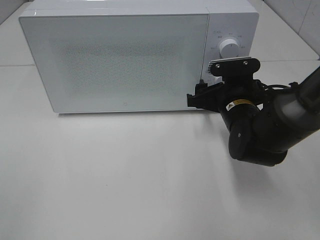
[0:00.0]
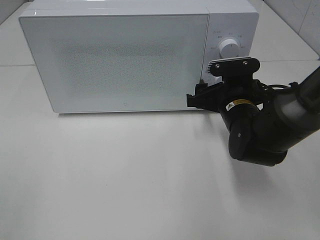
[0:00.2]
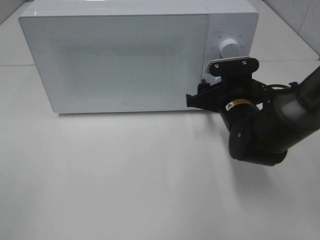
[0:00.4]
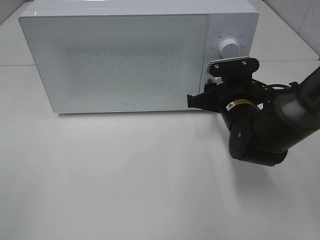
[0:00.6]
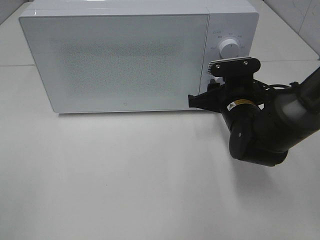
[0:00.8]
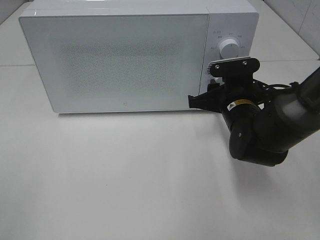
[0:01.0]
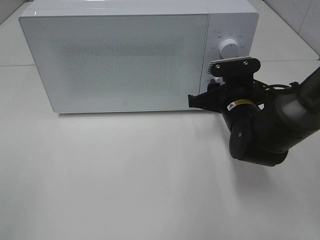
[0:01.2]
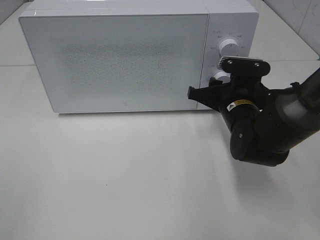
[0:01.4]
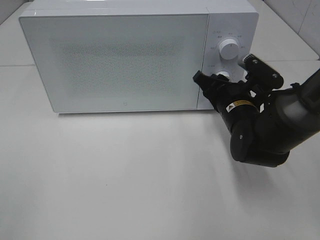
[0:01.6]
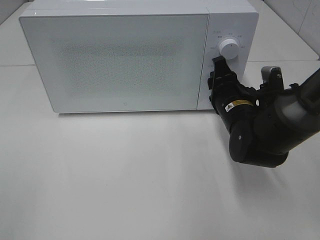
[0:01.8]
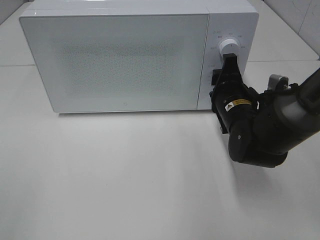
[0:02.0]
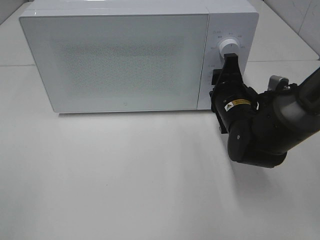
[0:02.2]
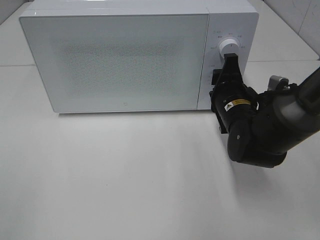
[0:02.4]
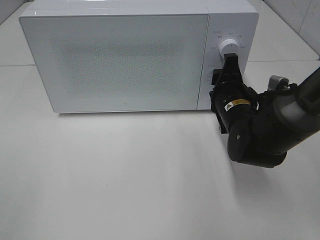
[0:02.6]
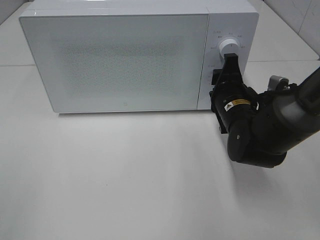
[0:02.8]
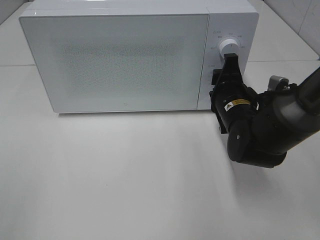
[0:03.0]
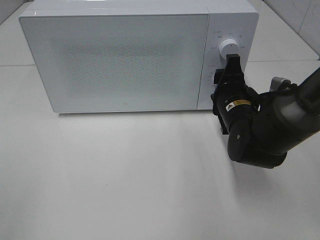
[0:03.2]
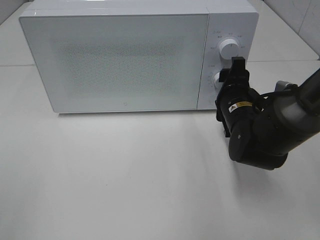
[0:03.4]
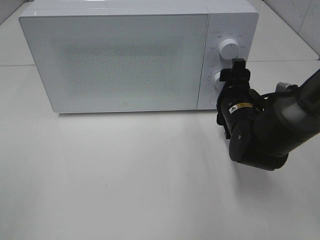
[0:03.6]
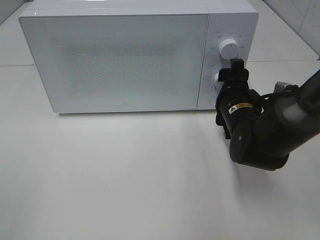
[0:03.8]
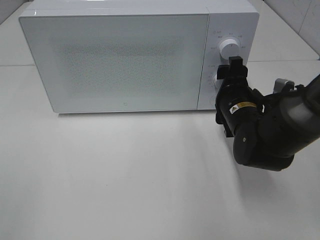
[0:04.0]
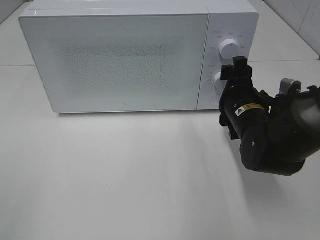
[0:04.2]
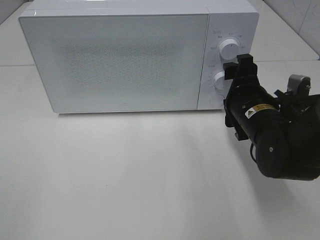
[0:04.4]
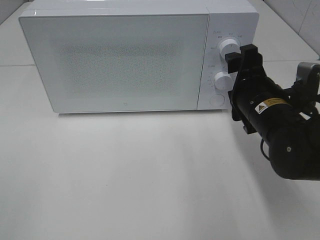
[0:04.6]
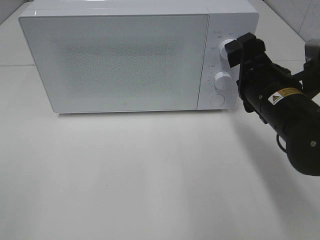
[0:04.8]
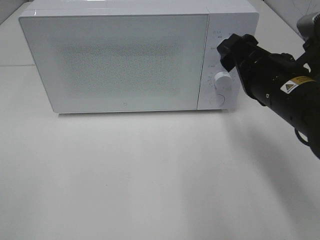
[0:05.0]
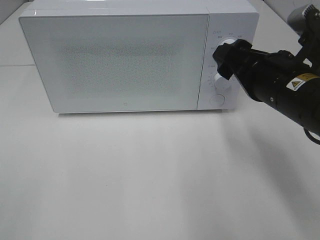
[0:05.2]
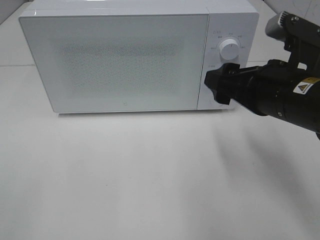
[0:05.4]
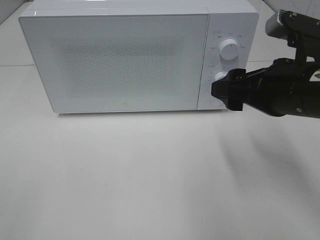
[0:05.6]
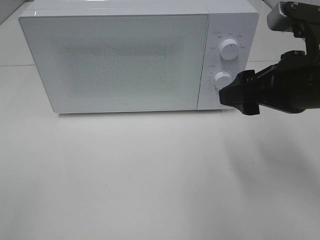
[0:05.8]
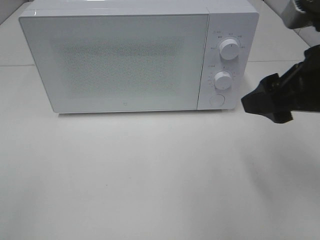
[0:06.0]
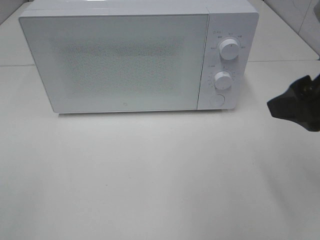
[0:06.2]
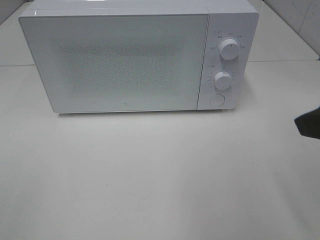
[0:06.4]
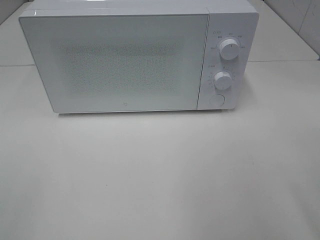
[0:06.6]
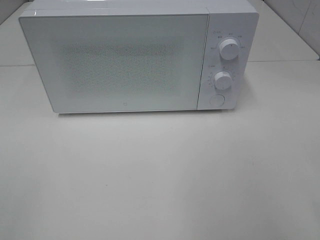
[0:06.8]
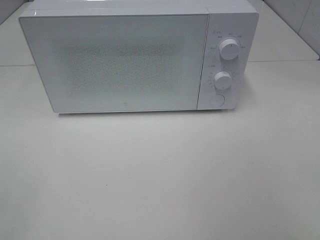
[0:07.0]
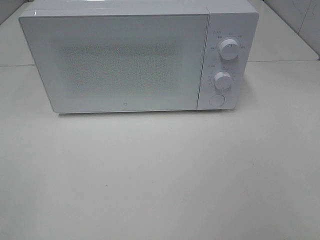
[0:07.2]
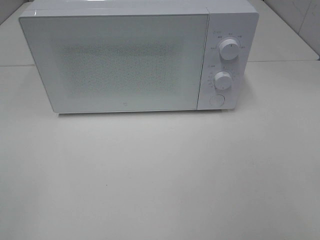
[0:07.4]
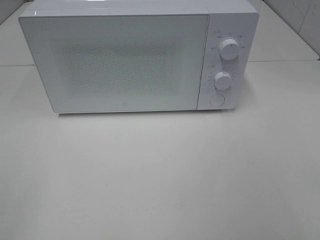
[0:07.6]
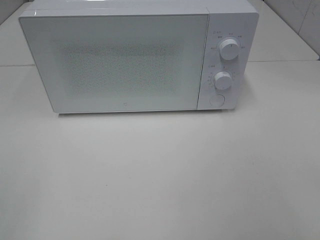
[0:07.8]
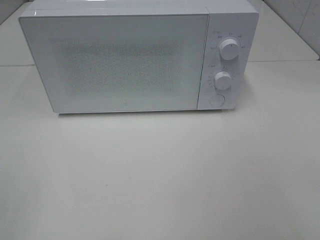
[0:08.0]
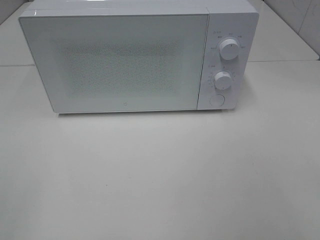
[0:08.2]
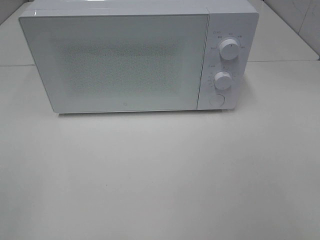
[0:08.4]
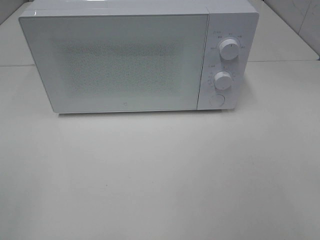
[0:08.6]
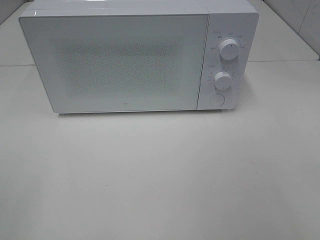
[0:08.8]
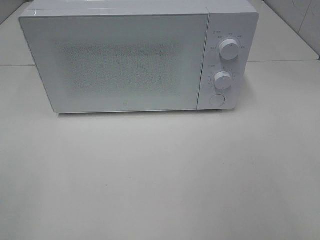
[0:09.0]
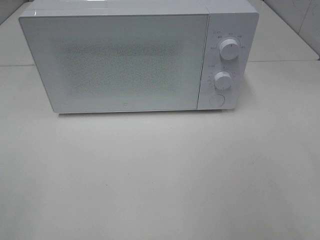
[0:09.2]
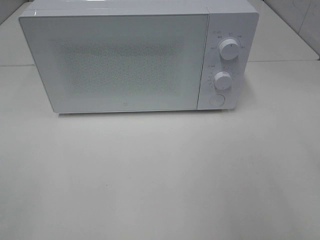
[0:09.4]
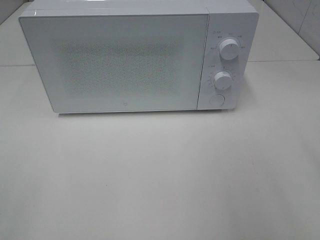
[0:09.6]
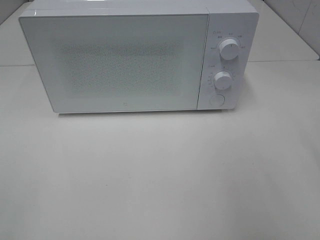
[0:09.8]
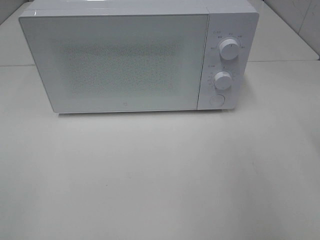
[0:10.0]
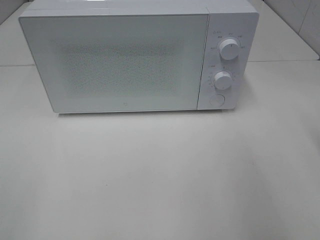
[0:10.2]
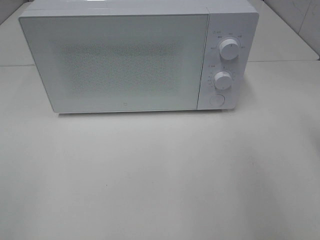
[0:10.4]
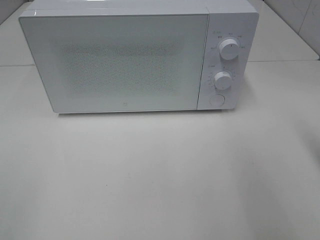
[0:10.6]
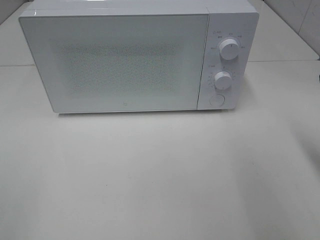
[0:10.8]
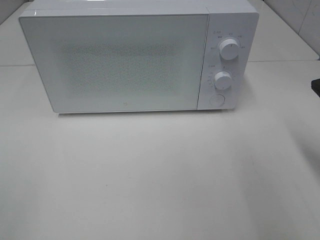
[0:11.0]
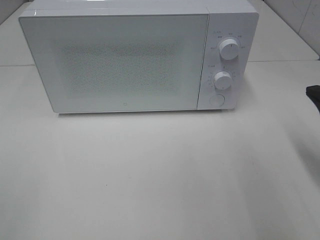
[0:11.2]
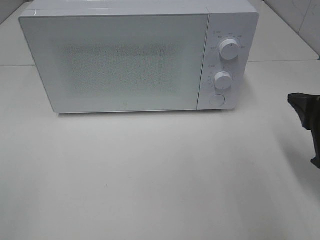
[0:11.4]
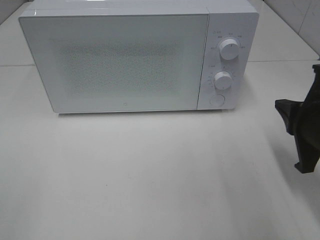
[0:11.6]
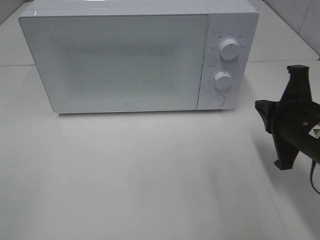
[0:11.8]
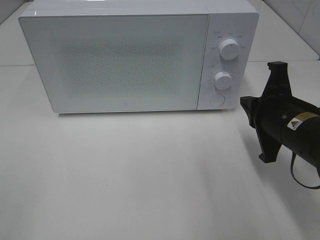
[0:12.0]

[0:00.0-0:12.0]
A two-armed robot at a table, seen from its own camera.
Task of the whole recording: Heat the burger.
Step, 0:00.0 to 0:03.2: Right hand: twist timer button.
0:00.0 to 0:01.6: The right gripper closes.
0:03.0 to 0:04.4: The right gripper opens.
0:04.4 to 0:06.0: The right gripper shifts about 15 cm upward and backward.
0:06.0 to 0:07.6: The right gripper is displaced backward and to the right by roughly 20 cm.
0:10.4 to 0:12.0: The right gripper shifts approximately 15 cm downward, to the left and forward.

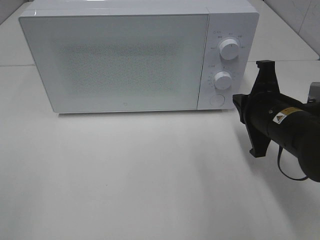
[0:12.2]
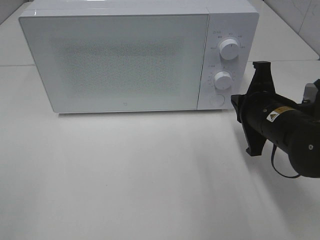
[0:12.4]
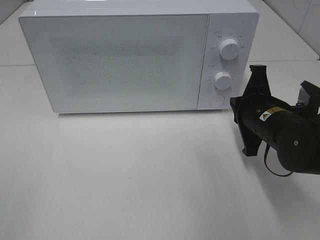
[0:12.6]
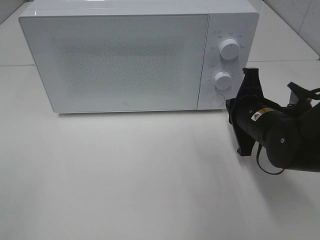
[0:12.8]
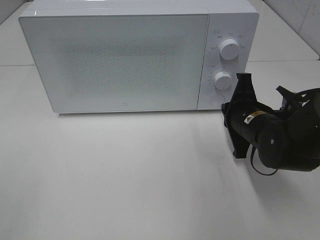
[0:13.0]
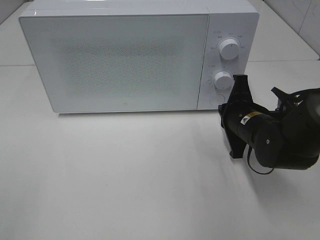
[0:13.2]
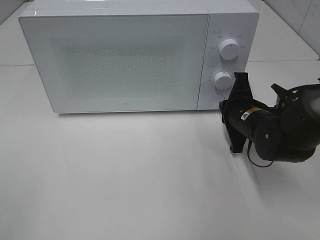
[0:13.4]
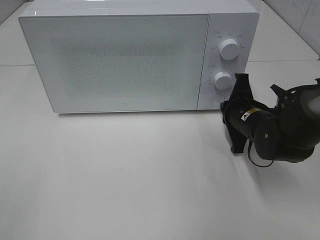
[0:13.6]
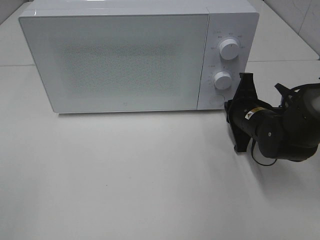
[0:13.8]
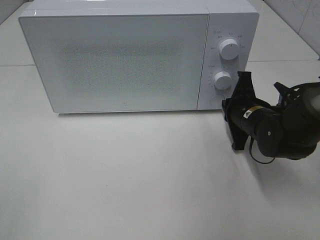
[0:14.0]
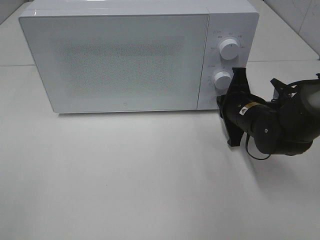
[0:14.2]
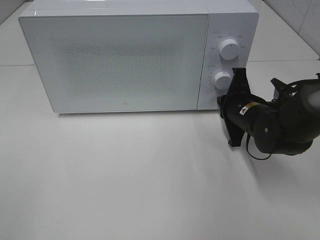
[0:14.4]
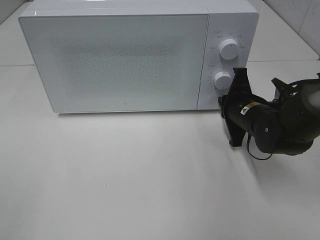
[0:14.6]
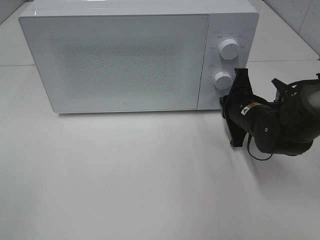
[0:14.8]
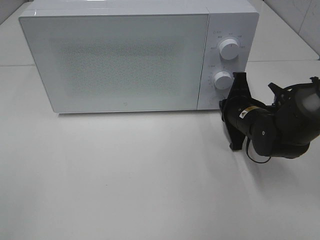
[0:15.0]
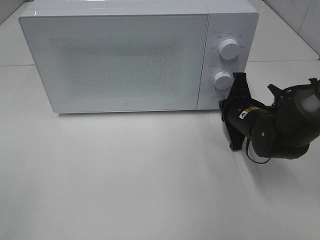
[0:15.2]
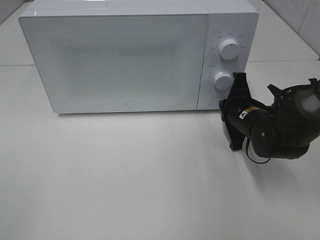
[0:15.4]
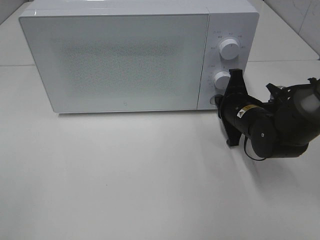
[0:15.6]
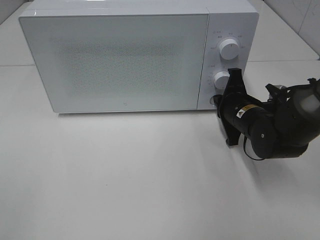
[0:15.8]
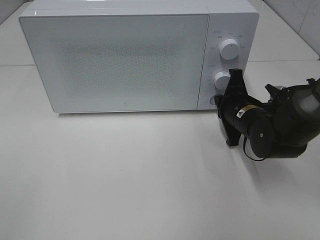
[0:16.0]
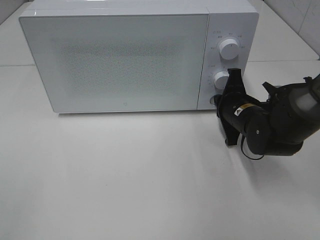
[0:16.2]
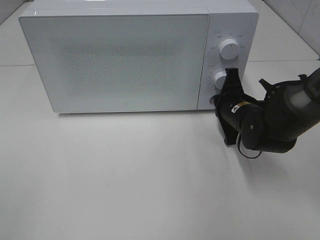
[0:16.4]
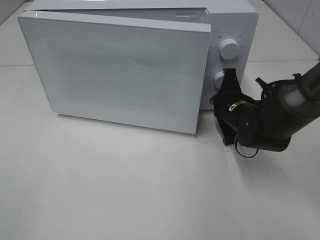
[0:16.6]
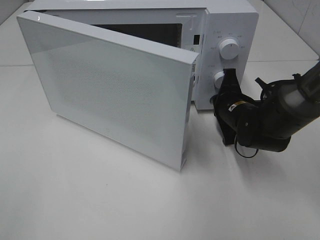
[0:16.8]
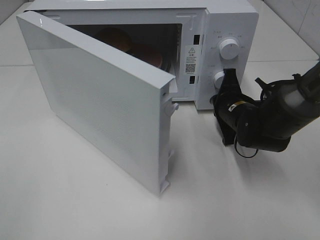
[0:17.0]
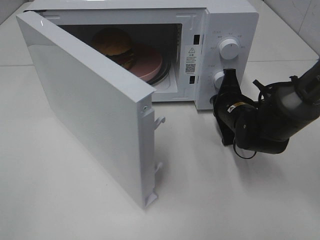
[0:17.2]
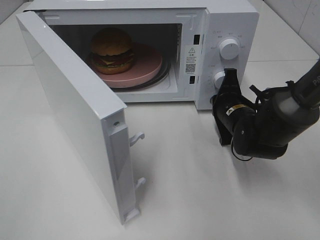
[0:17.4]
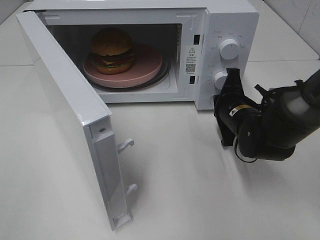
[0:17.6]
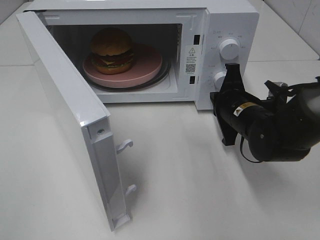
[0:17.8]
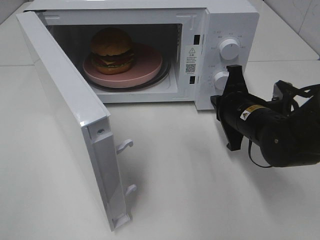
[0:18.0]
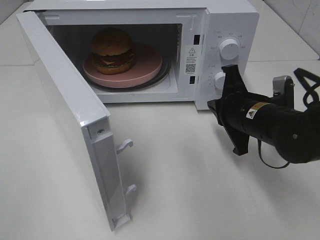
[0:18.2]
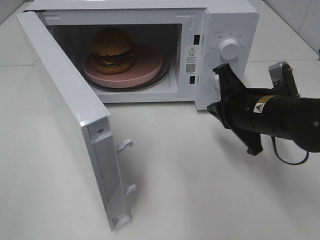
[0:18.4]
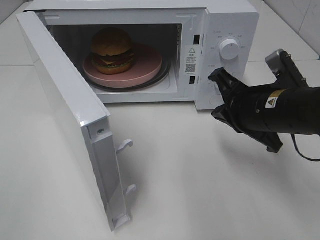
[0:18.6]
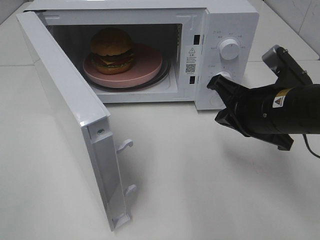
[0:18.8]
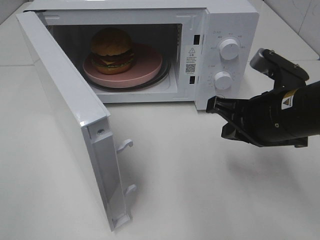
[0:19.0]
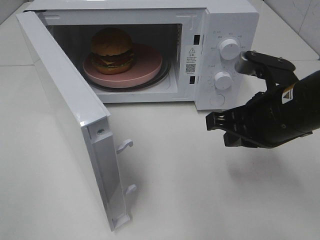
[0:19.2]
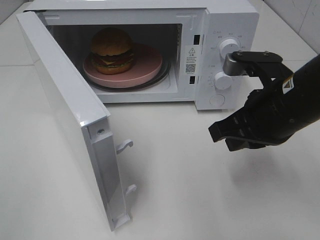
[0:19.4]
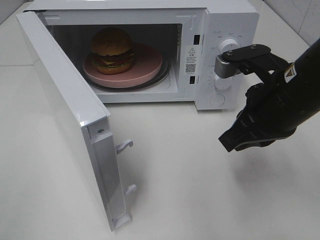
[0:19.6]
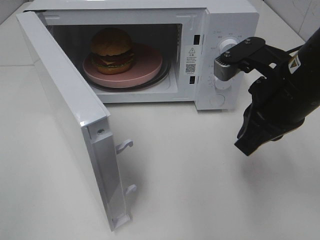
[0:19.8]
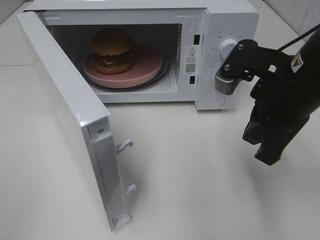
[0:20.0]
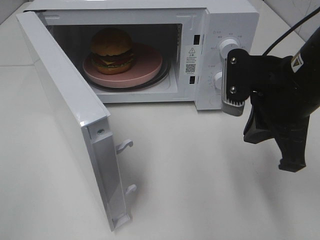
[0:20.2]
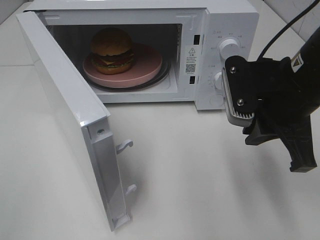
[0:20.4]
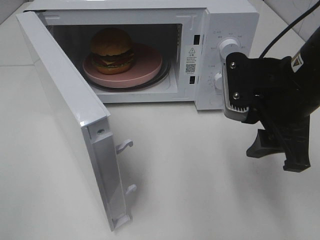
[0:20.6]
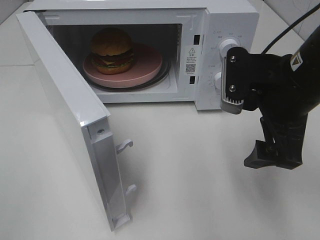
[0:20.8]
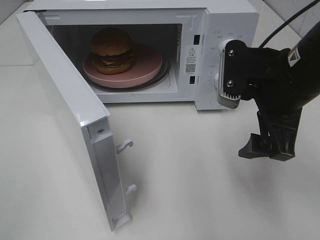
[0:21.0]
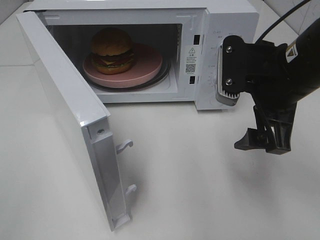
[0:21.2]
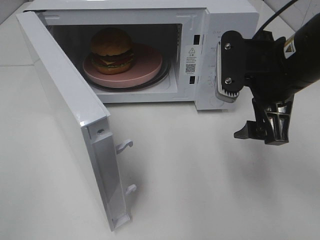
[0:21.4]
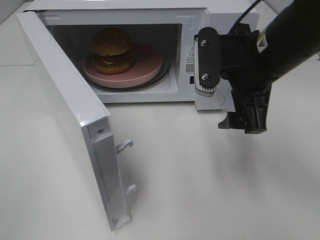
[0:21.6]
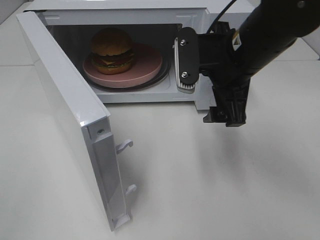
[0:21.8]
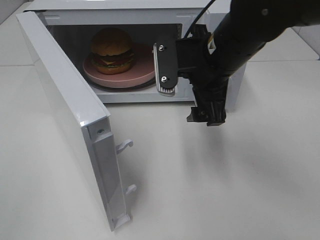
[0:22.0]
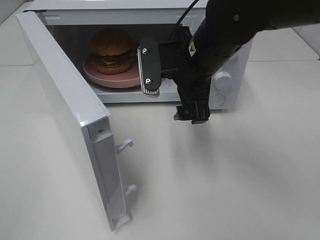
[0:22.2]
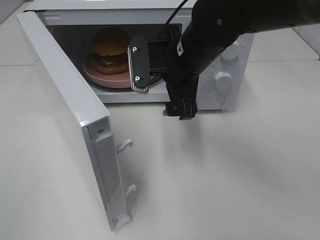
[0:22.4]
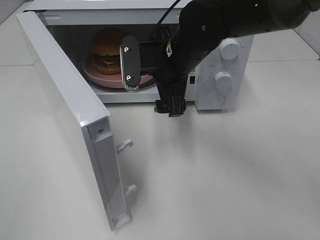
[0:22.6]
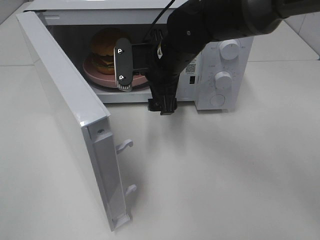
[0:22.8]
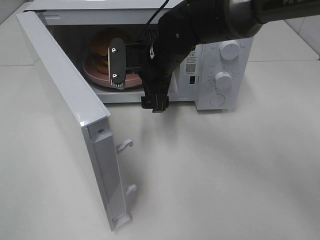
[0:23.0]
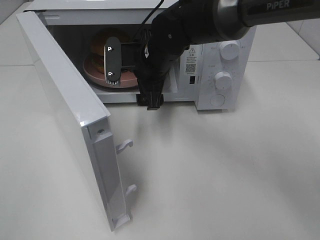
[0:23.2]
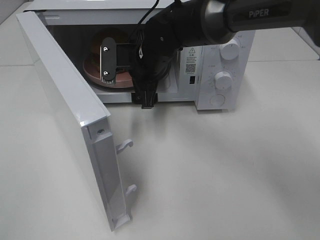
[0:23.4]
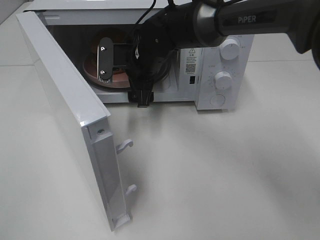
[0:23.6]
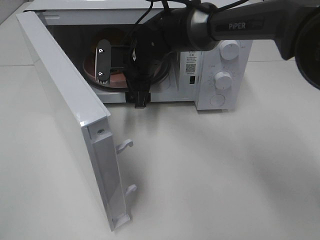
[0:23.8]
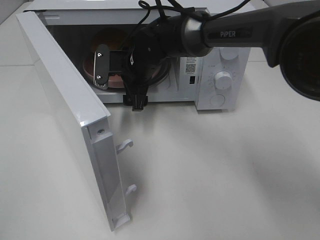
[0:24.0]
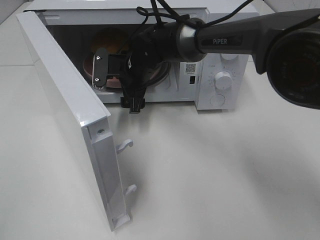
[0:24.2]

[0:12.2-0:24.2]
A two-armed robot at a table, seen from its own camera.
Task of the whole recording: Heat the burger.
Step, 0:12.2 to 0:17.6: Right hand: press the switch.
0:12.2 to 0:13.8: The right gripper travels forward and downward by some 10 cm.
0:13.8 to 0:15.2: Neither gripper changes place.
0:15.2 to 0:16.6: The grippers move only a little.
0:16.6 to 0:18.2: The right gripper moves backward and upward, roughly 10 cm.
0:18.2 to 0:19.8: The right gripper is displaced upward by roughly 10 cm.
0:19.8 to 0:21.2: The right gripper opens its fingers.
0:21.2 to 0:22.6: The right gripper heads to the left and forward, covering approximately 15 cm.
0:22.6 to 0:24.2: The right gripper moves forward, downward and to the left, roughly 15 cm.
